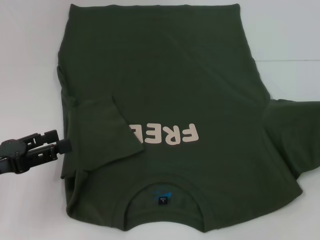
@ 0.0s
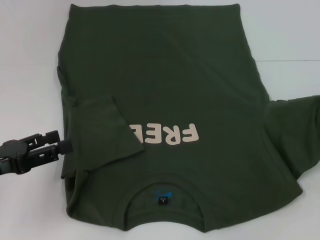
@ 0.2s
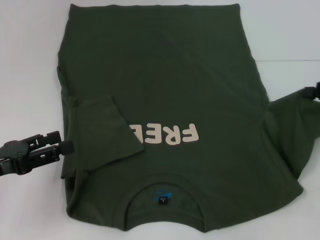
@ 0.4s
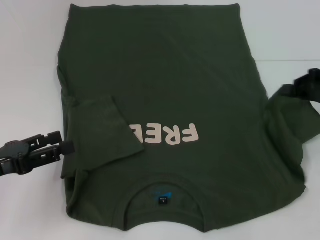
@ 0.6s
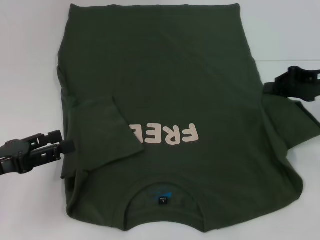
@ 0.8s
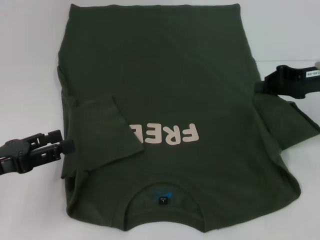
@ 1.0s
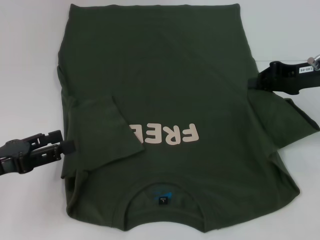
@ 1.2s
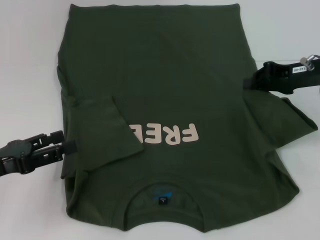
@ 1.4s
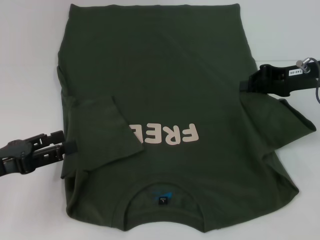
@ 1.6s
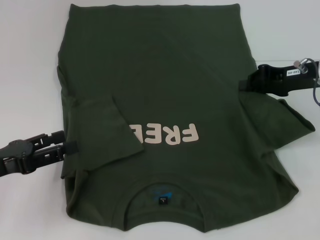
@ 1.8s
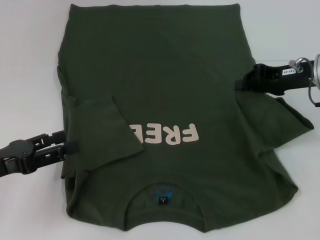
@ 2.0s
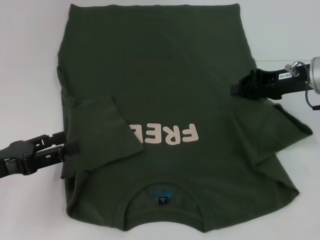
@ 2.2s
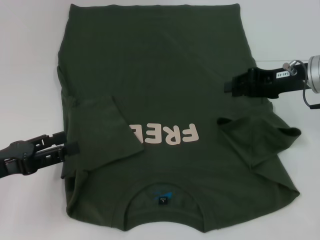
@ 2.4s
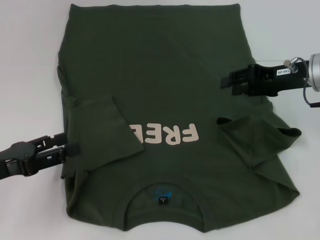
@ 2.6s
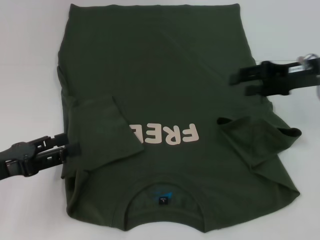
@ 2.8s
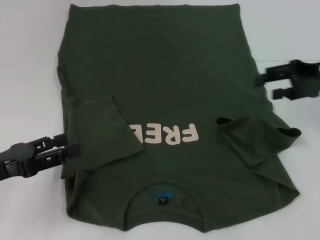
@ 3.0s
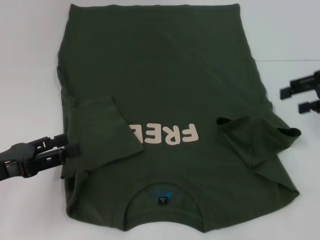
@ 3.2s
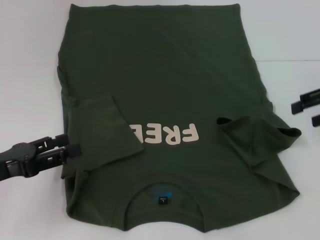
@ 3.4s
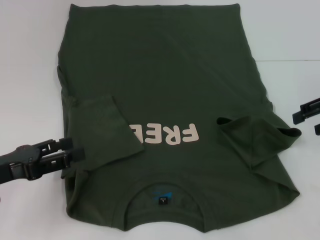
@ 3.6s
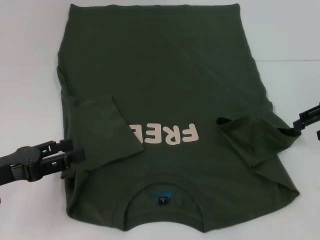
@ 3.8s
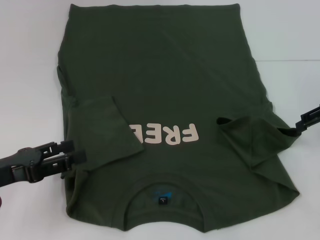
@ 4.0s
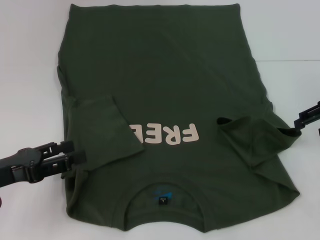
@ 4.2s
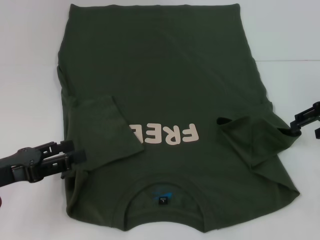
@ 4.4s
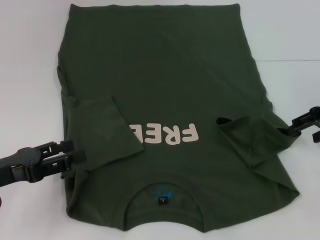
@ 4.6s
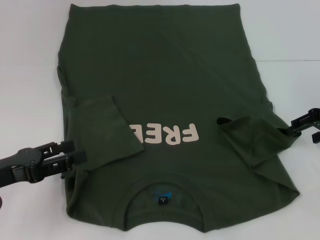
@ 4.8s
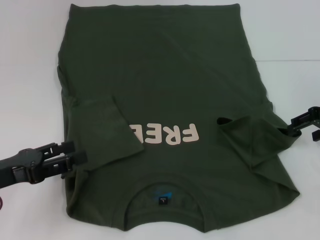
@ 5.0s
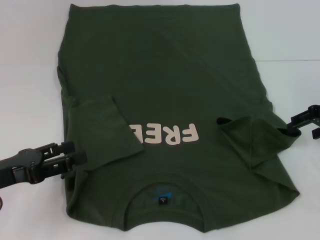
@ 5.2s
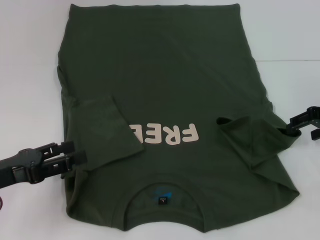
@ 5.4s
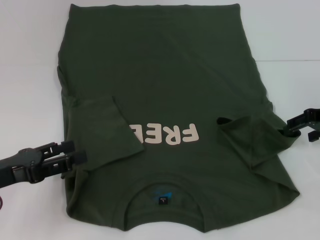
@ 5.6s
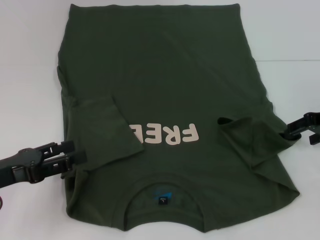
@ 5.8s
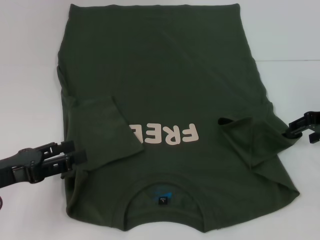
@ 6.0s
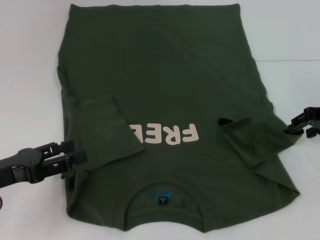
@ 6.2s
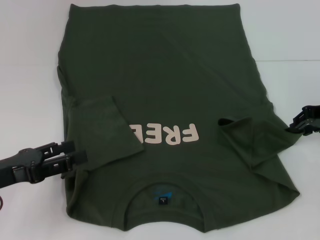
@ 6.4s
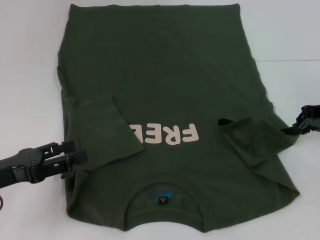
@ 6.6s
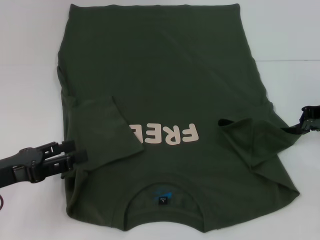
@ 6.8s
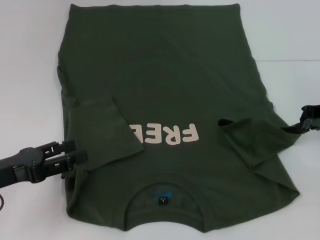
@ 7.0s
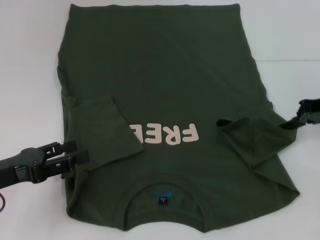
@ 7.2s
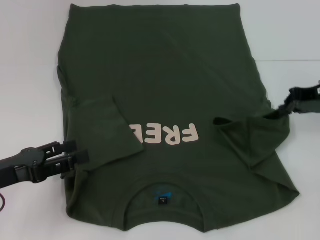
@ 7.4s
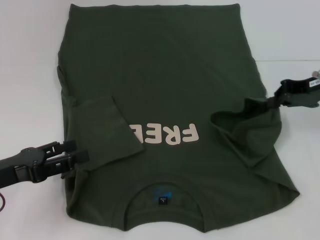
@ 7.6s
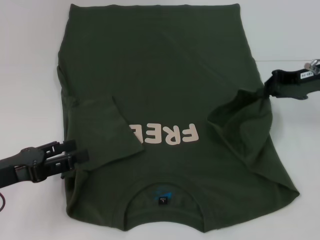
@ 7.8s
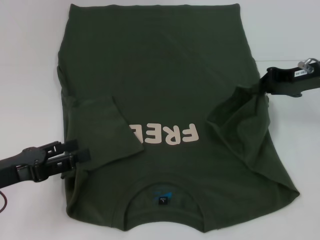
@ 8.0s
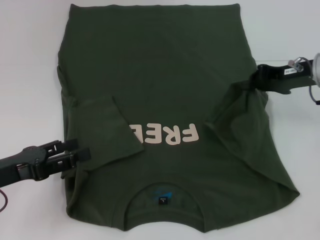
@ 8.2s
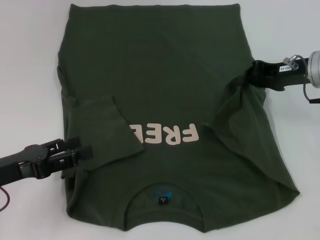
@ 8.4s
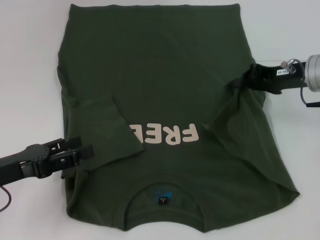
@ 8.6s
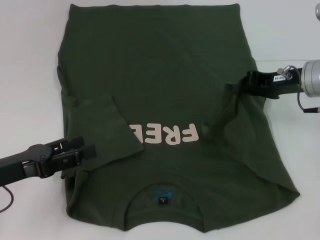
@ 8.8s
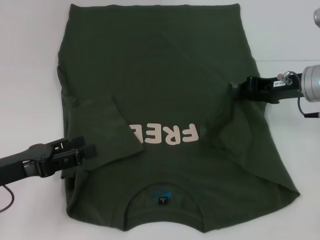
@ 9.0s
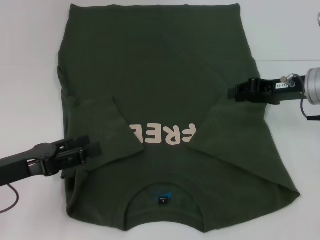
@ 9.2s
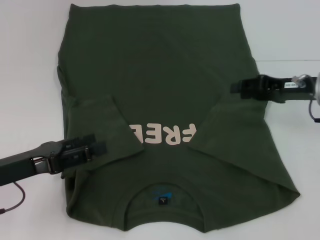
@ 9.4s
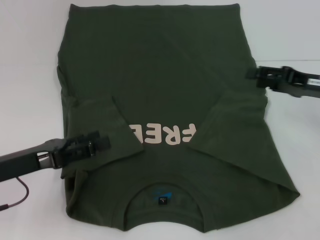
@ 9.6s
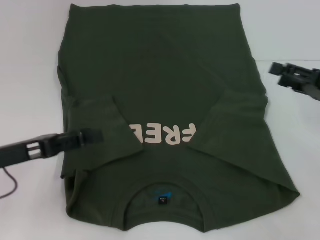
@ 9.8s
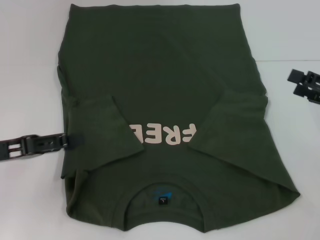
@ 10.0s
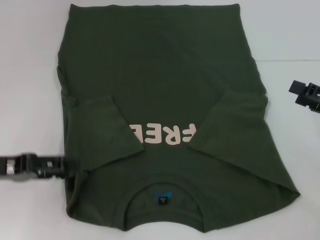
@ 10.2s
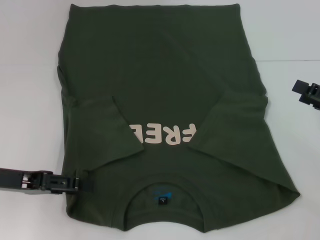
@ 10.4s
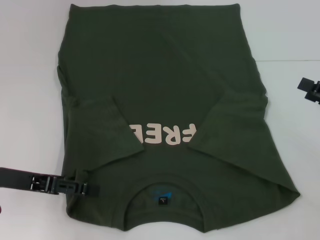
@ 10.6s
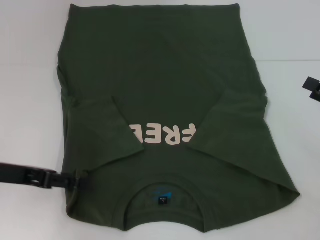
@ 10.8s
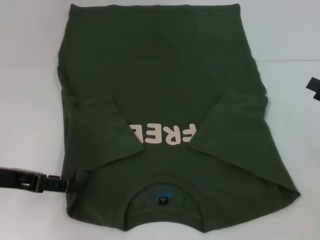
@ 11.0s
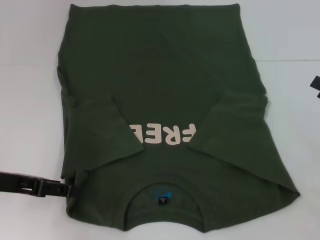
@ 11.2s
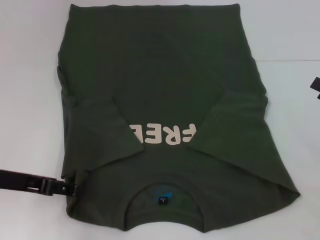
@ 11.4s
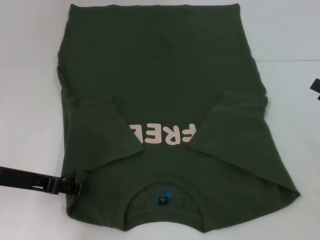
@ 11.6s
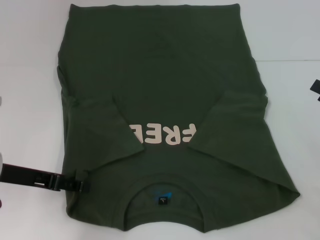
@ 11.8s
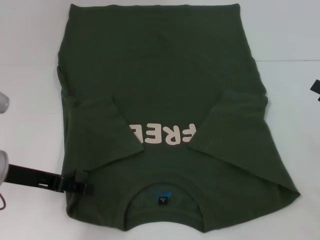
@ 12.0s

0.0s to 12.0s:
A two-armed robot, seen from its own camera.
Step, 0.0s to 9.6s: Fold the bottom right sleeve with your right hand.
0.0s to 1.6s: The right gripper heads to the left and forward, covering roughly 15 cm.
1.6s to 3.0s: The right gripper opens.
4.4s to 6.0s: The grippers stay close to where they were, moving slightly.
6.0s to 7.6s: The right gripper closes its fingers.
7.6s to 9.0s: The right gripper moves roughly 5 cm.
9.0s to 10.4s: The right gripper is displaced backward and to the right by roughly 15 cm, and opens its fingers.

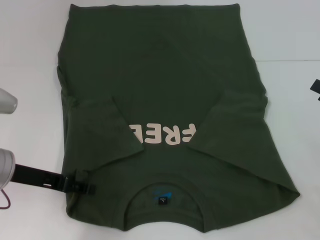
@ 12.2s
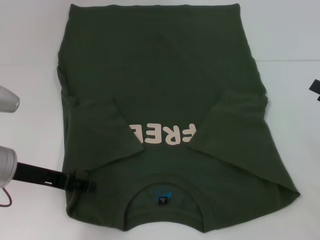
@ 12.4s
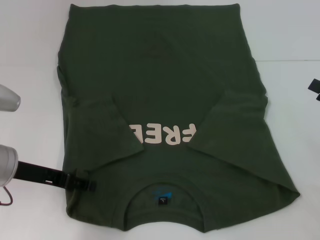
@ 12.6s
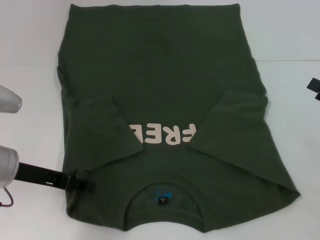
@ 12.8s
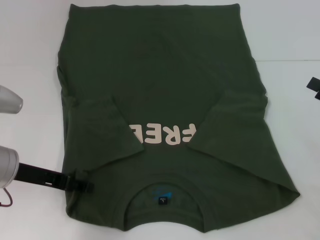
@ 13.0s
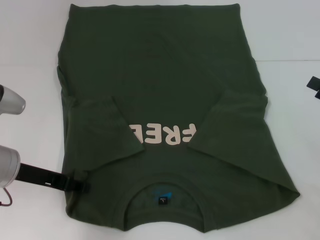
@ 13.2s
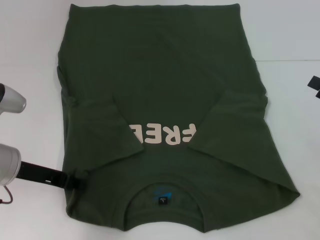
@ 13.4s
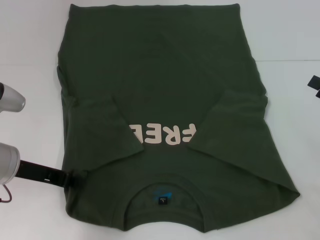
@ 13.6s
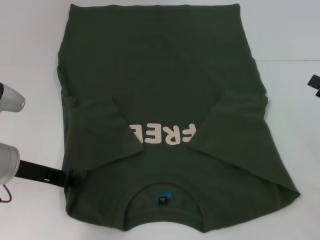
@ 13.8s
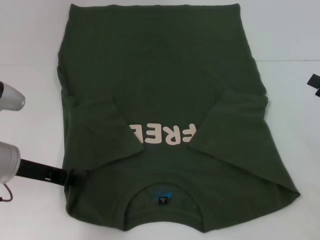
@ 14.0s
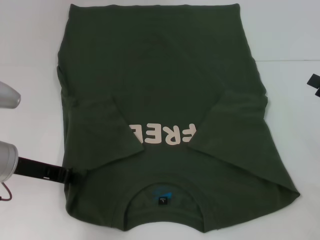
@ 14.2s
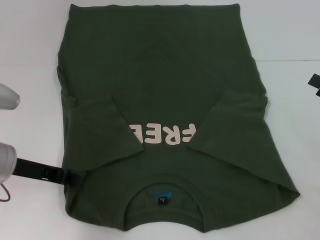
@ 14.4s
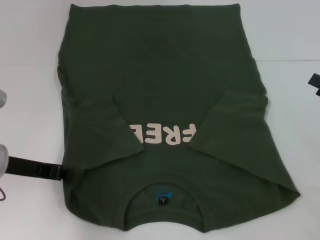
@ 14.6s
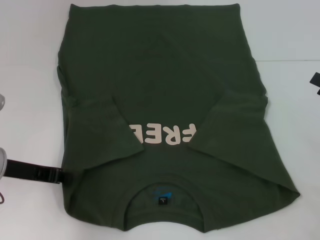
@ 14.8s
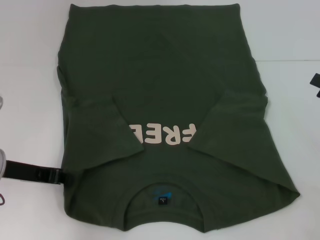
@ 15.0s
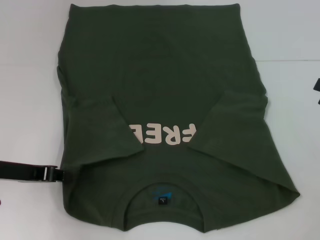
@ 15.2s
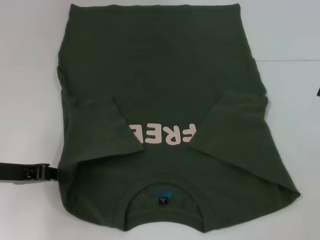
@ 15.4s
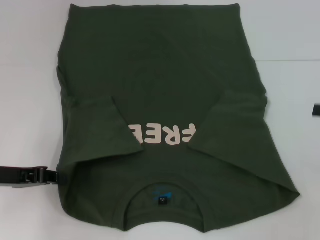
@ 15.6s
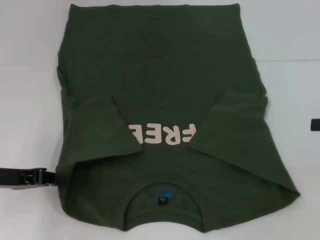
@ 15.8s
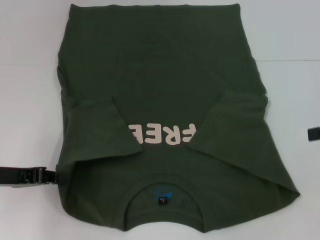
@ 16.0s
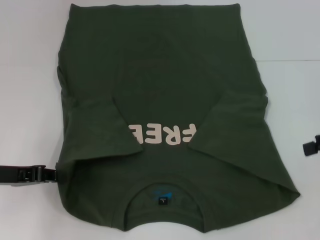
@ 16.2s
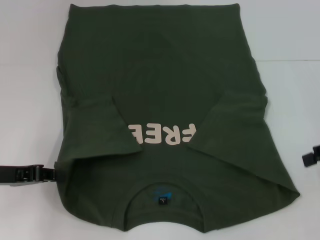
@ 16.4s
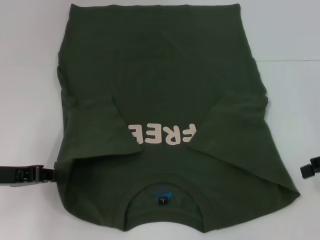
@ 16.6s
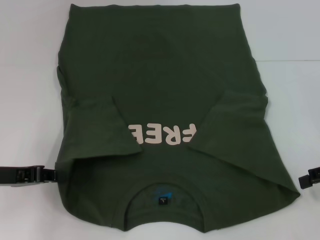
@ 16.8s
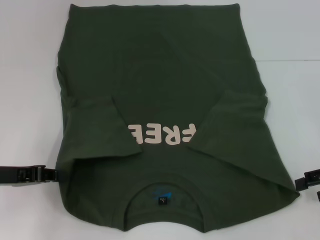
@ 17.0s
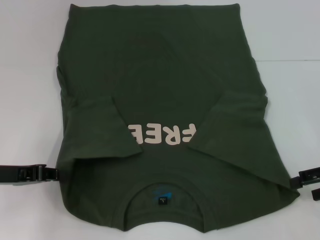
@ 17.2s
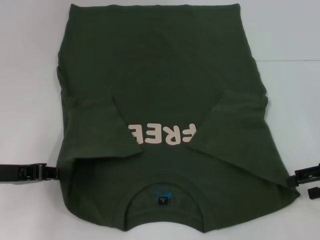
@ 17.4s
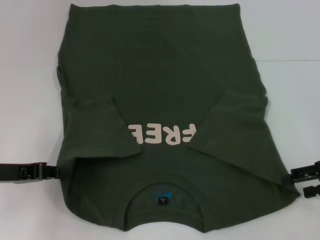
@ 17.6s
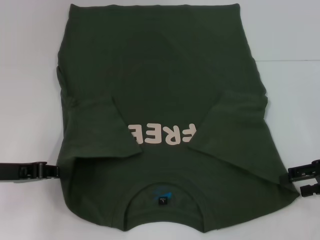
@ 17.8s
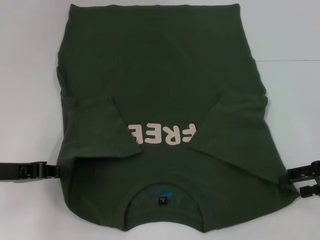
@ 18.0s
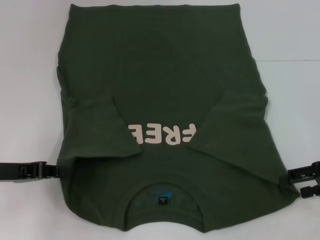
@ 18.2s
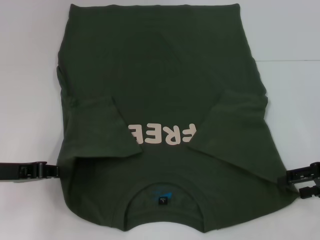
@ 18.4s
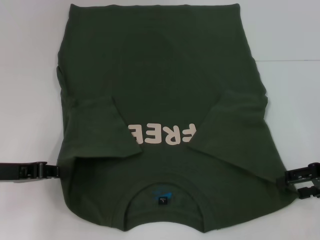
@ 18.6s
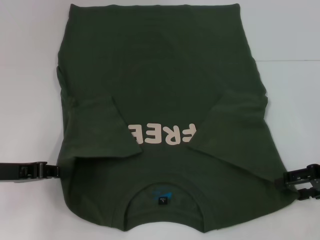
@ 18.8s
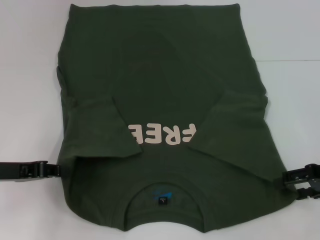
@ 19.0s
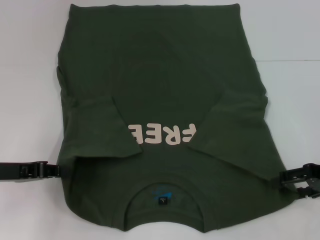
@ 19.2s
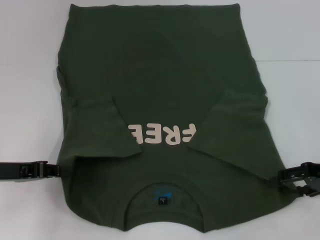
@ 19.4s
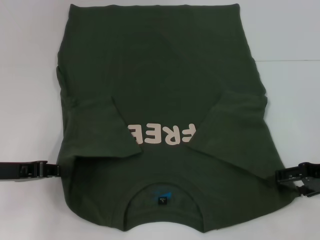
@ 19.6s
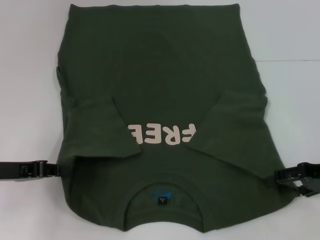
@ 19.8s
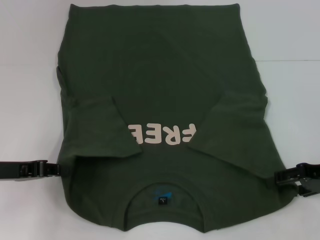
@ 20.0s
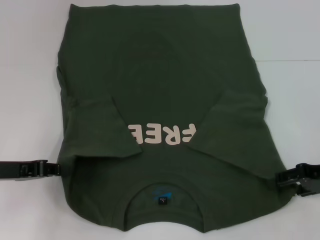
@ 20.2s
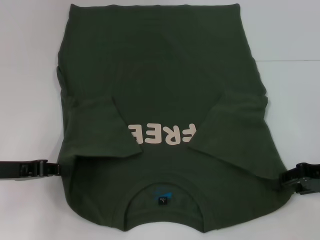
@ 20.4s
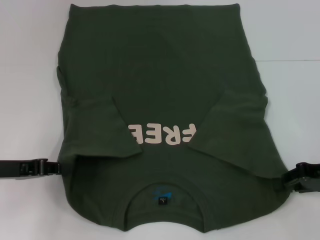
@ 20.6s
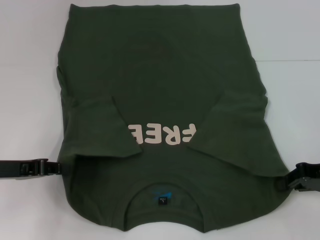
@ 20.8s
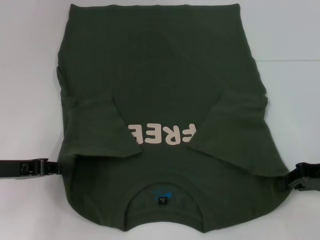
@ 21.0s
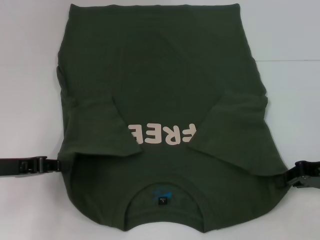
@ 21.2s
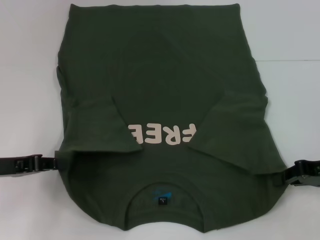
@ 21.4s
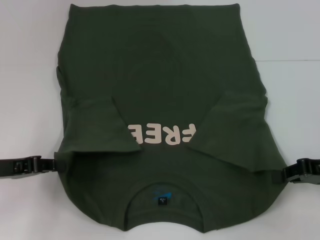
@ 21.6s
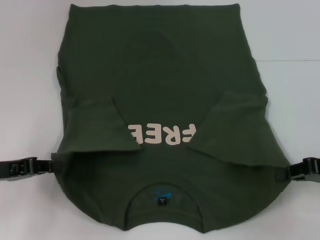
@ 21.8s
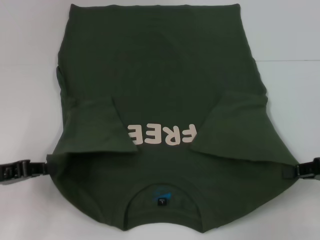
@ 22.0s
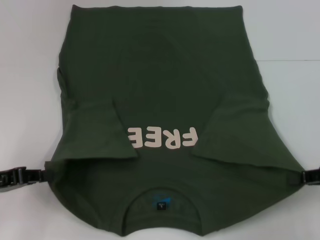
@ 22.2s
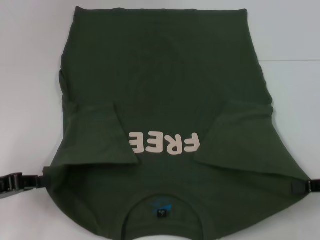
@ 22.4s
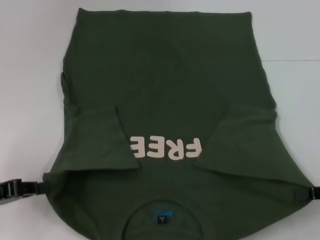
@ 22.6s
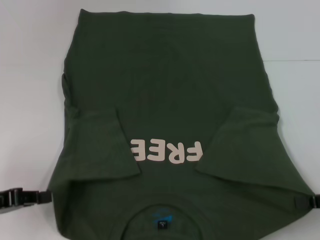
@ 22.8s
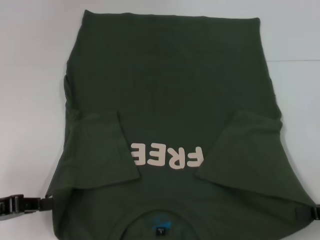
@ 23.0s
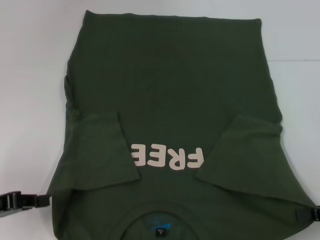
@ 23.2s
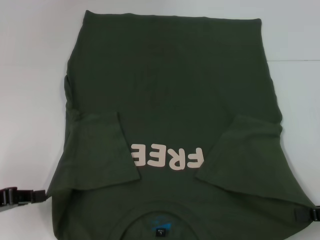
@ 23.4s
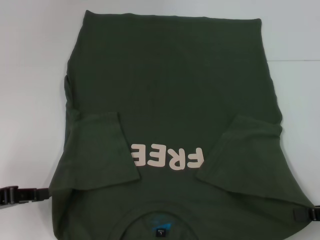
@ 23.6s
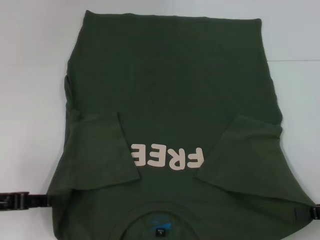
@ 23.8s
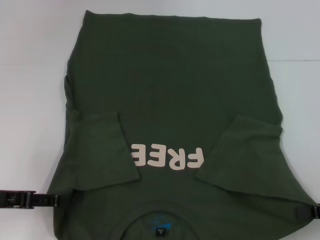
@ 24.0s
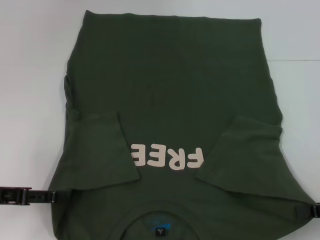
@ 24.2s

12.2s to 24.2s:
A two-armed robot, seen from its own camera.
Step, 12.2s to 15.4s: Grab the bottom left corner with your left hand.
Step, 15.6s to 21.4s: Grab the bottom right corner with your right hand.
12.2s to 13.8s: The left gripper closes.
13.8s to 15.2s: The grippers make only small movements.
15.2s to 16.6s: The right gripper moves roughly 5 cm.
16.6s to 18.2s: The right gripper shifts by approximately 5 cm.
18.2s to 19.8s: The grippers move only a little.
19.8s to 21.2s: The right gripper closes up.
21.2s to 22.6s: The right gripper heads backward, covering approximately 5 cm. Meanwhile the left gripper moves roughly 5 cm.
22.6s to 24.2s: The left gripper opens its fingers.
